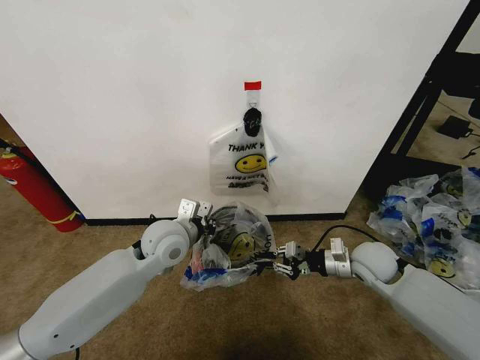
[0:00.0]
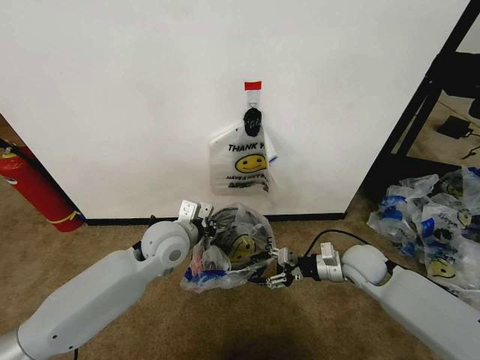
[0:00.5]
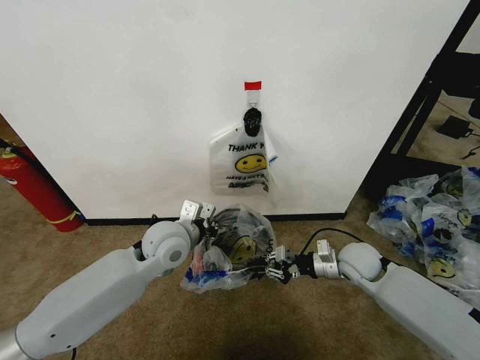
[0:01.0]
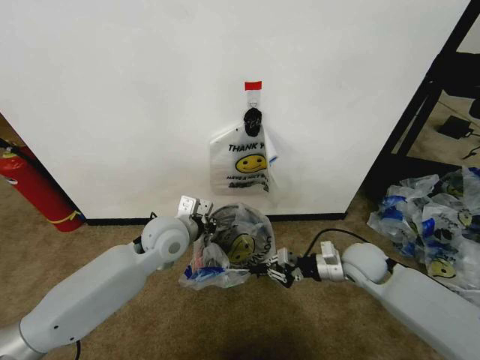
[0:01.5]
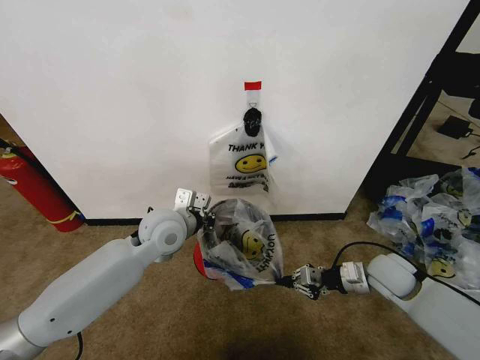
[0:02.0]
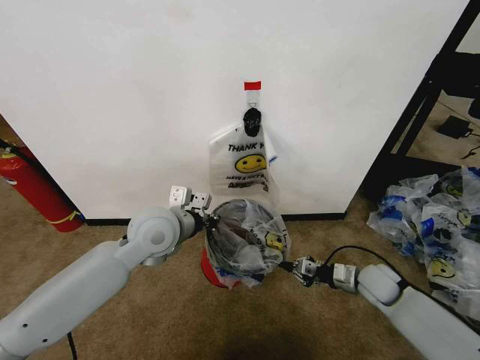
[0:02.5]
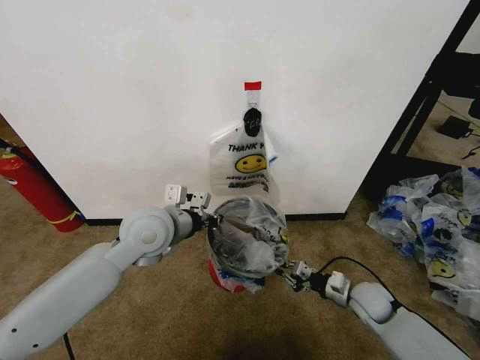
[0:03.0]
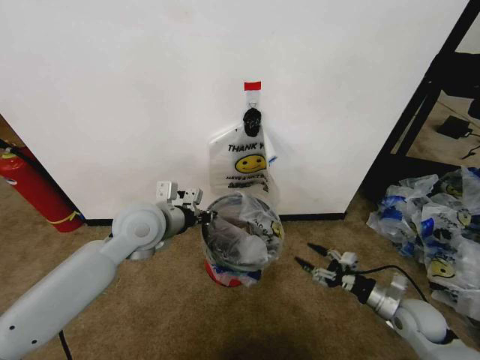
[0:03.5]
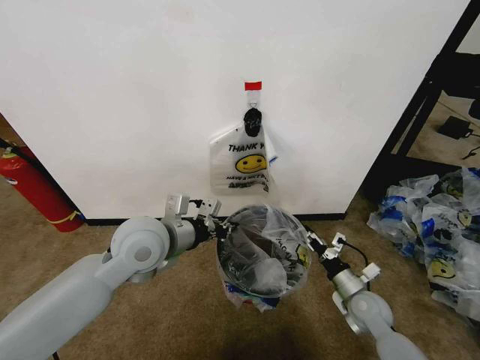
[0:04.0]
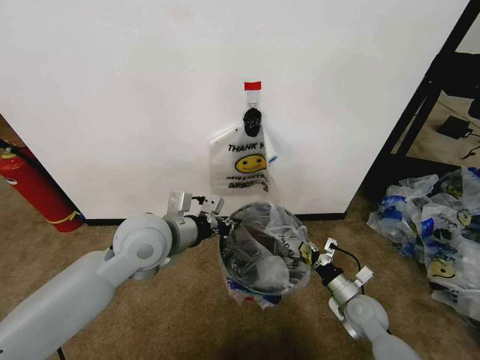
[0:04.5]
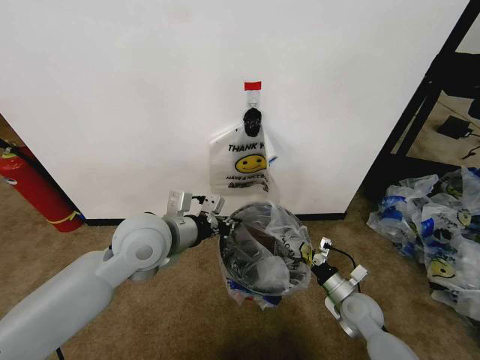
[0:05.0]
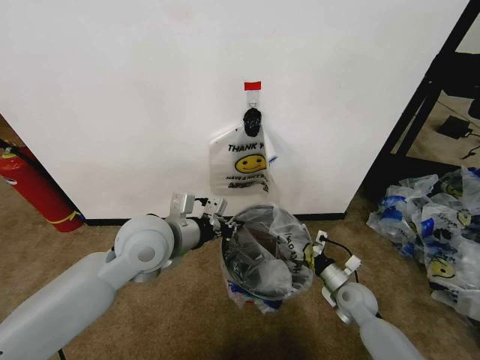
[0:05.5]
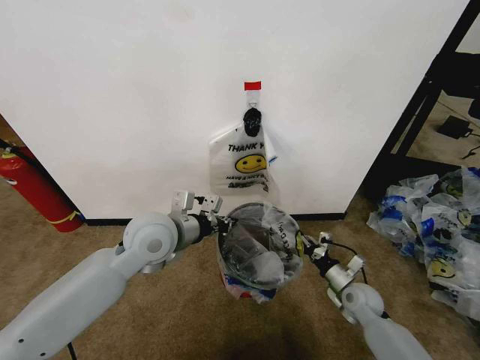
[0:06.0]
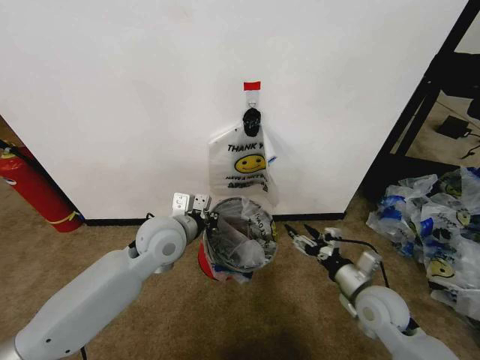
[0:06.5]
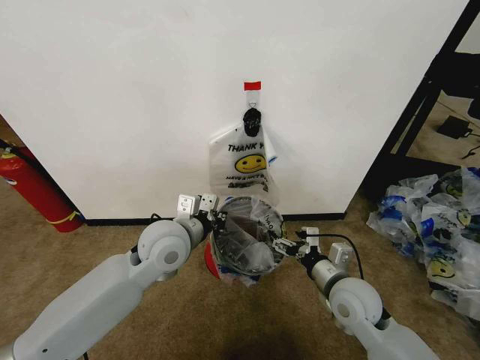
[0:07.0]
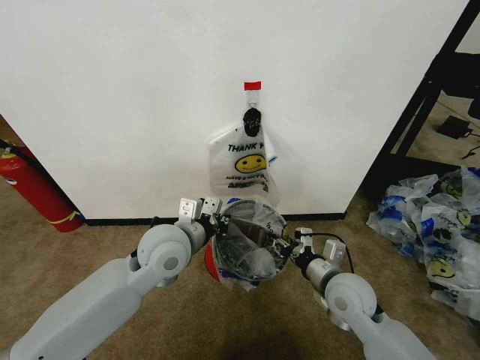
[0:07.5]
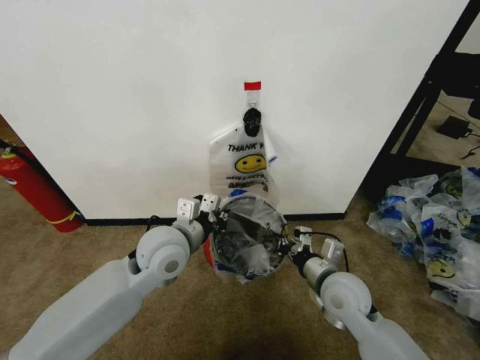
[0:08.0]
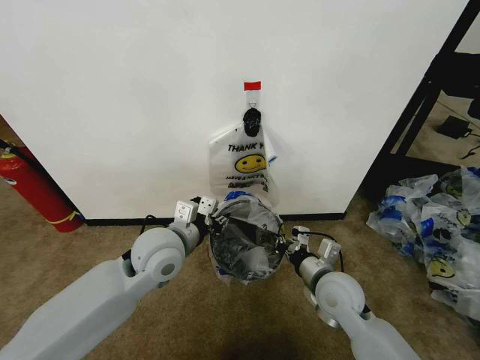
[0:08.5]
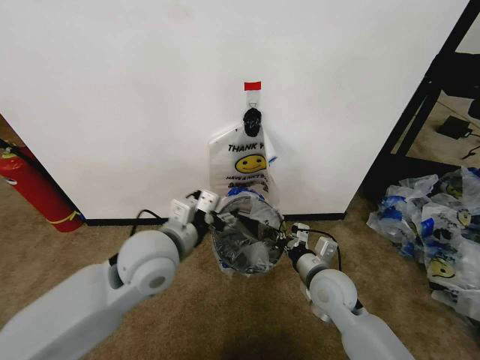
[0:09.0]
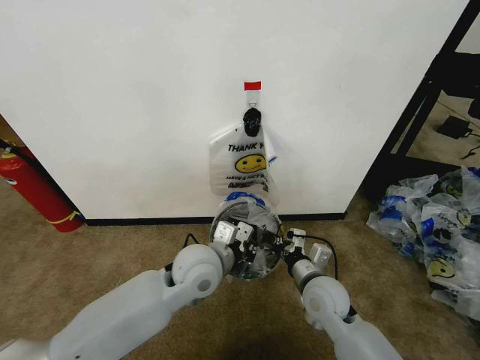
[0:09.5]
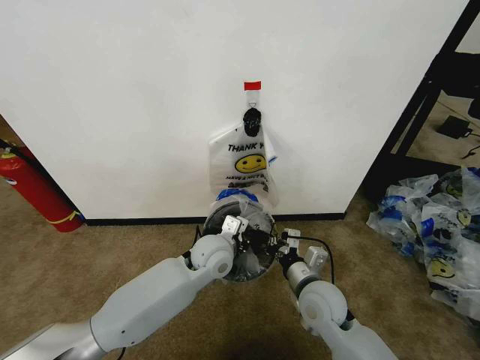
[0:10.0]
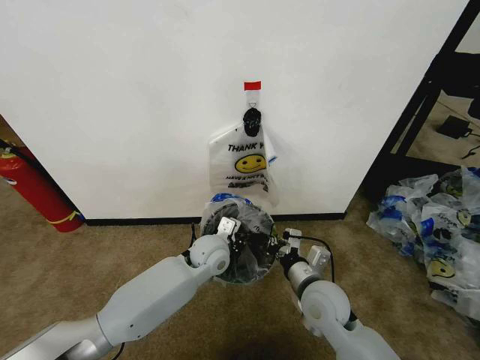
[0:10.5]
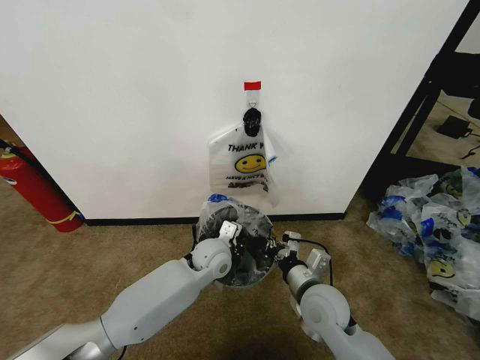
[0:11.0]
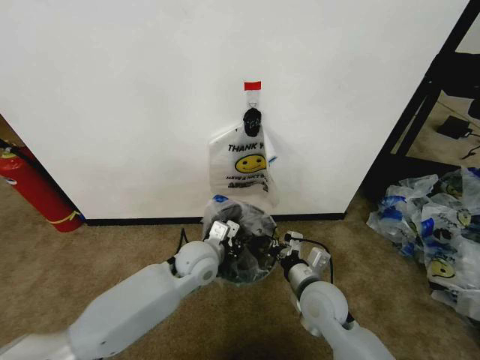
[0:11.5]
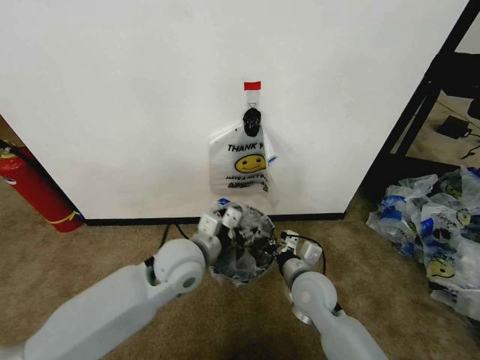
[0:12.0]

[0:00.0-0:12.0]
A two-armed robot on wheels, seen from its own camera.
Task of the whole recording: Pick up the garbage bag from the wall and place it over the trash bin.
0:00.0 to 0:02.0: The right gripper opens and closes again.
0:02.0 to 0:04.0: The right gripper travels downward by about 10 cm, and opens. Meanwhile the left gripper moves backward, some 5 cm.
0:04.0 to 0:06.0: The right gripper closes up.
0:06.0 to 0:08.0: The right gripper moves upward and to the left, roughly 20 cm, and opens, then closes once more.
0:08.0 to 0:10.0: The right gripper ends up about 5 cm from where it was; the left gripper heads downward and to the right, covering about 10 cm, and opens, then closes once more.
0:10.0 to 0:12.0: The left gripper shifts approximately 10 cm upward, to the left and backward, and opens up.

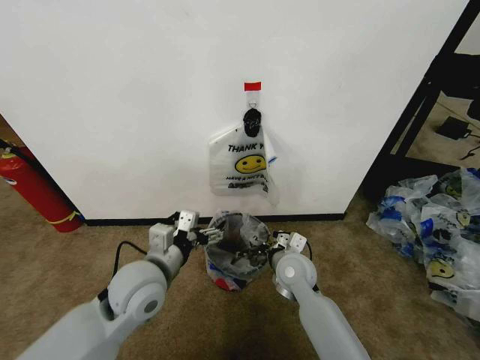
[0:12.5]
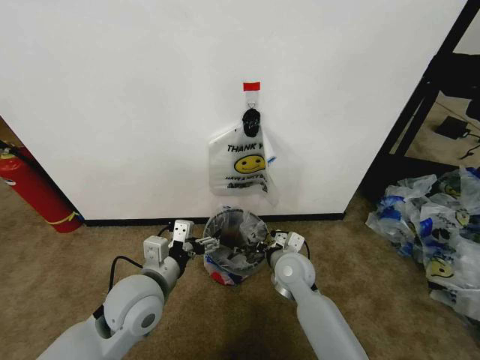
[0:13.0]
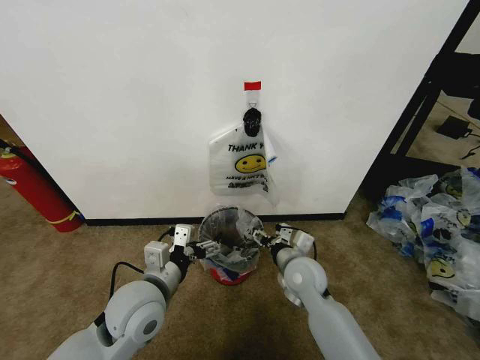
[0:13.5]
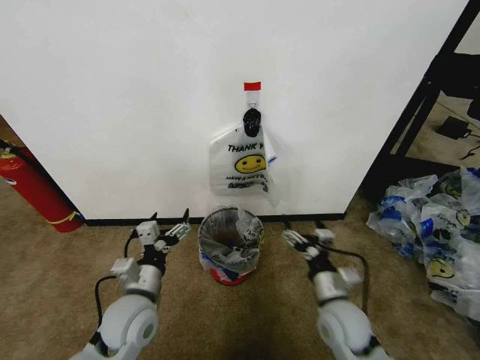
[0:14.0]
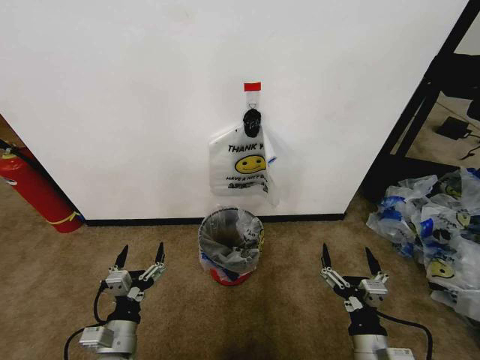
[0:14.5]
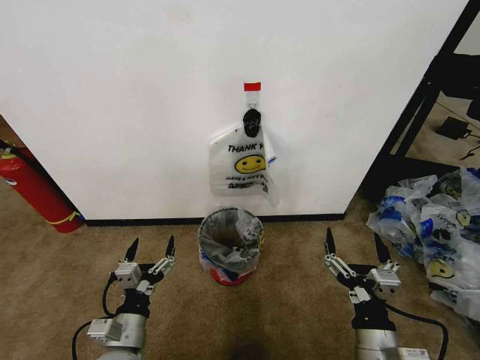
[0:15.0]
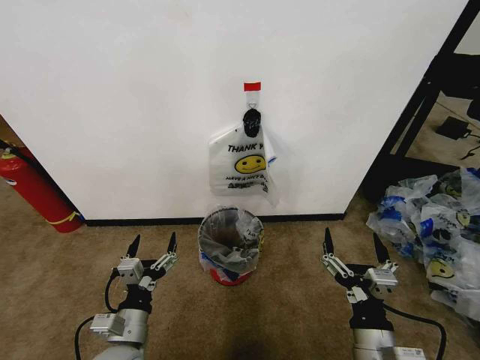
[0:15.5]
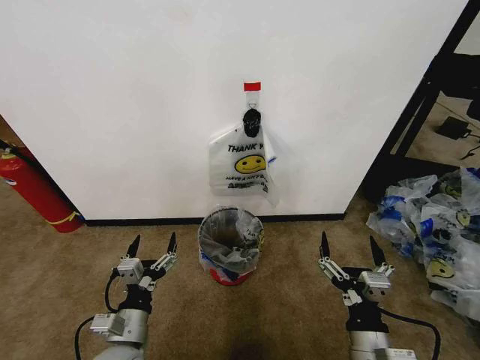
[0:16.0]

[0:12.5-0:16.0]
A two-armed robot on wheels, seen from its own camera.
Task of the whole recording: Pick up the garbage bag from the wall and place it over the trash bin.
0:12.5 to 0:14.5: The left gripper shifts roughly 20 cm downward, backward and to the left. Meanwhile the right gripper is displaced backward and to the right by some 25 cm, and opens.
0:14.5 to 0:16.0: The right gripper shifts about 5 cm upward.
